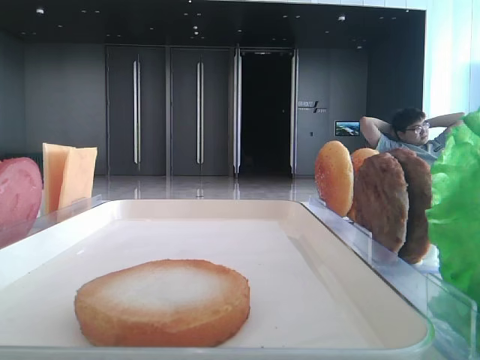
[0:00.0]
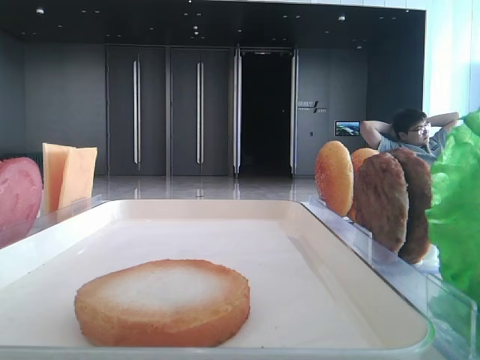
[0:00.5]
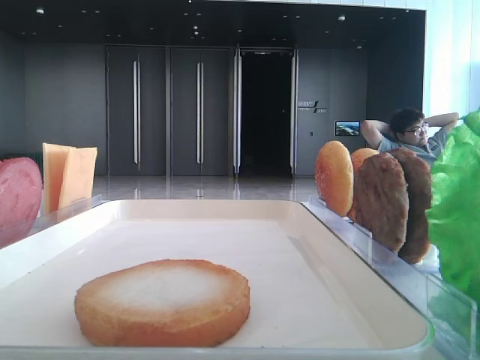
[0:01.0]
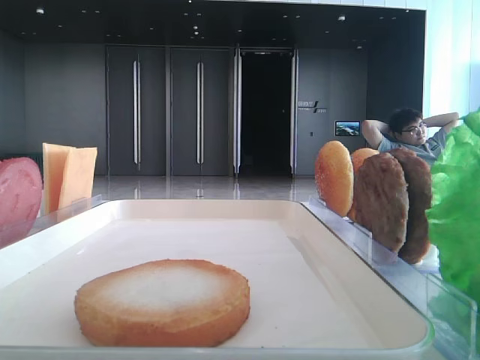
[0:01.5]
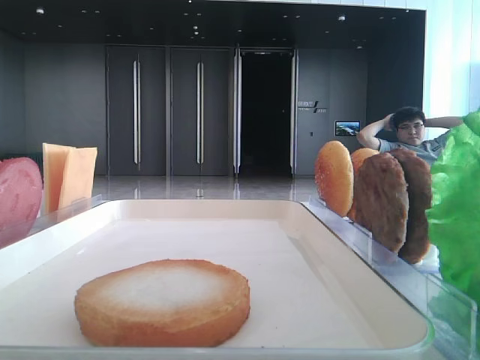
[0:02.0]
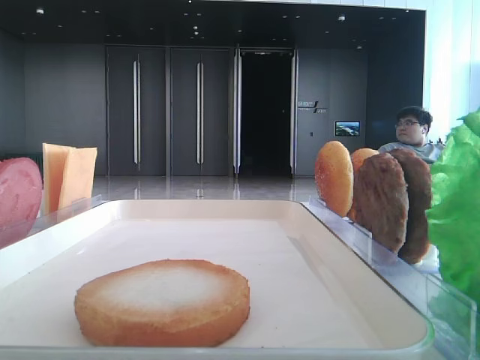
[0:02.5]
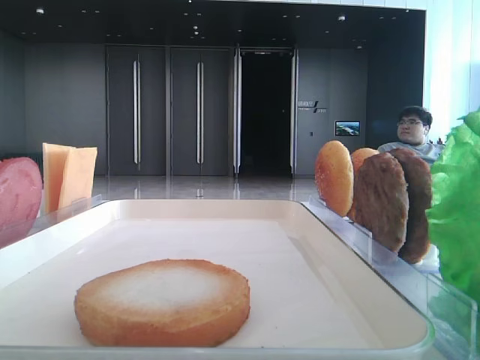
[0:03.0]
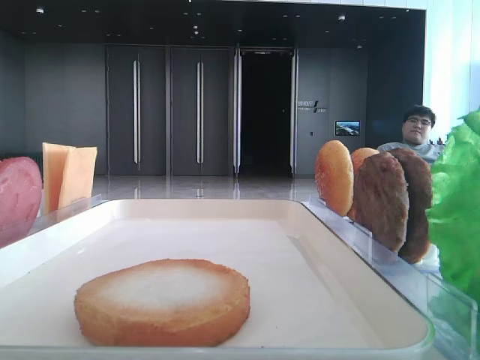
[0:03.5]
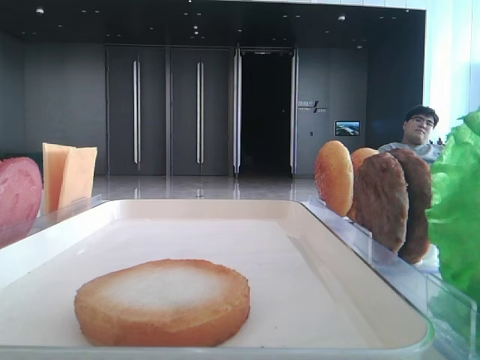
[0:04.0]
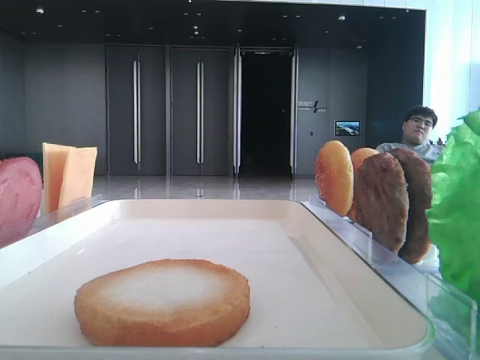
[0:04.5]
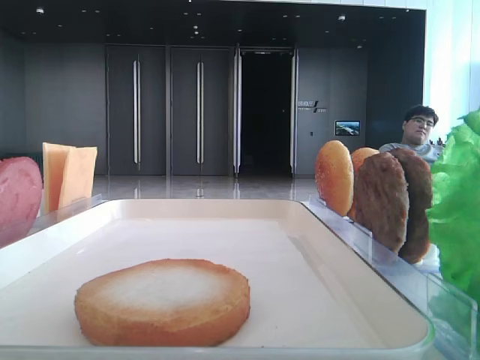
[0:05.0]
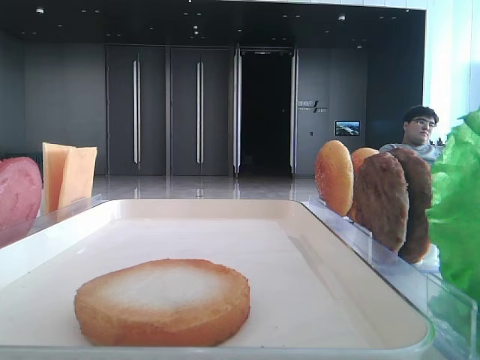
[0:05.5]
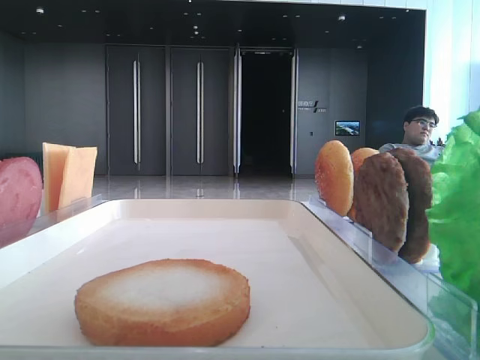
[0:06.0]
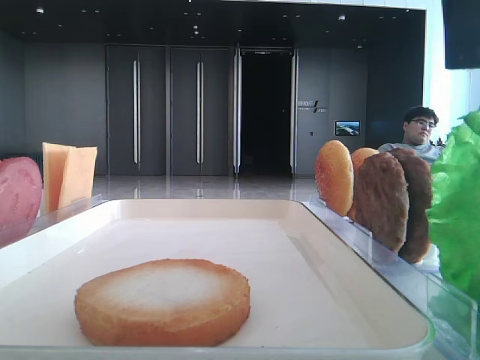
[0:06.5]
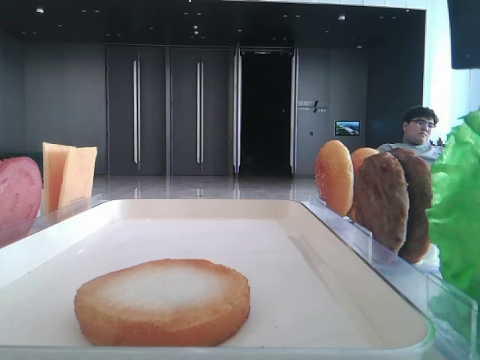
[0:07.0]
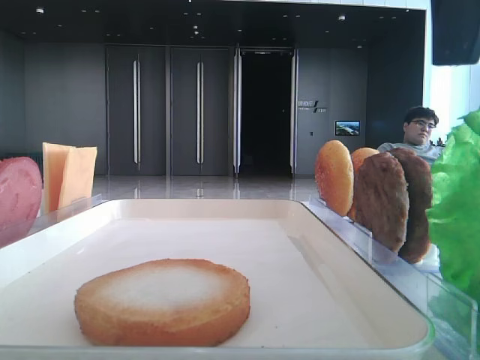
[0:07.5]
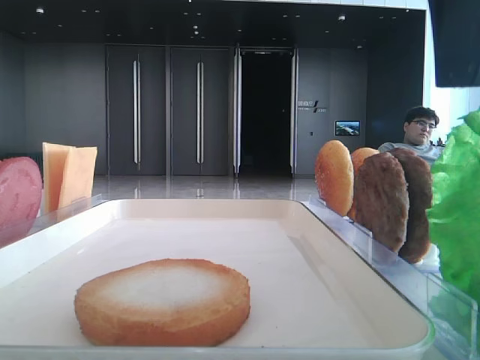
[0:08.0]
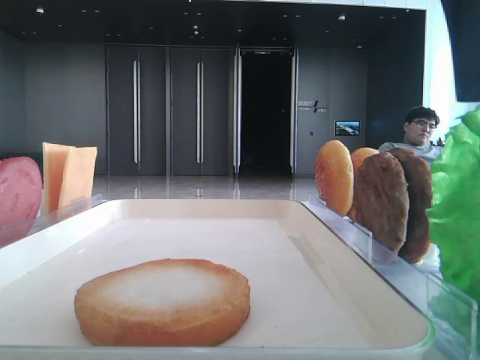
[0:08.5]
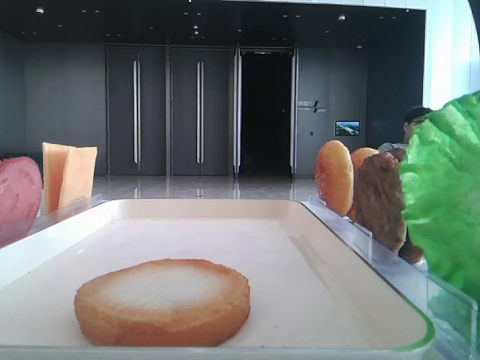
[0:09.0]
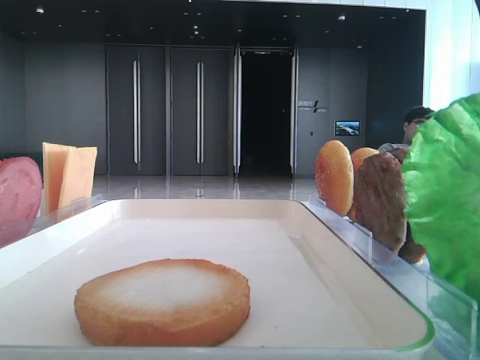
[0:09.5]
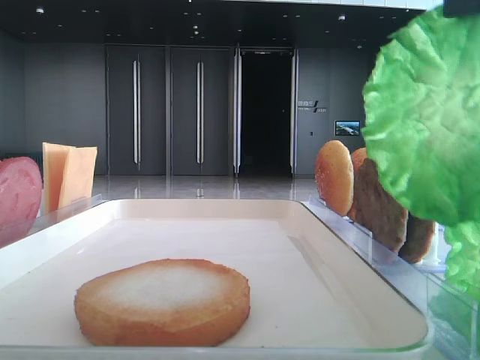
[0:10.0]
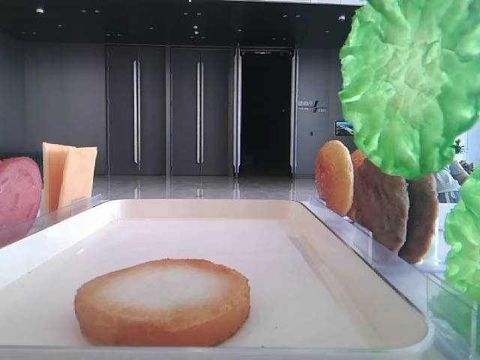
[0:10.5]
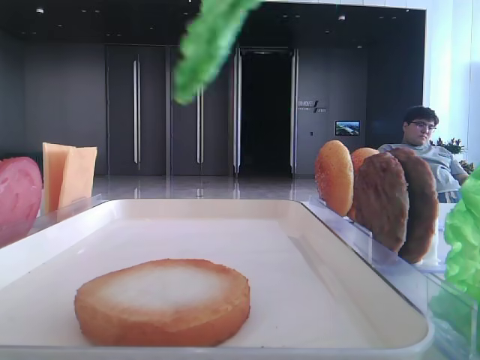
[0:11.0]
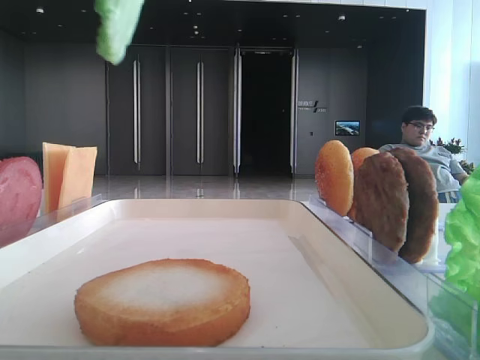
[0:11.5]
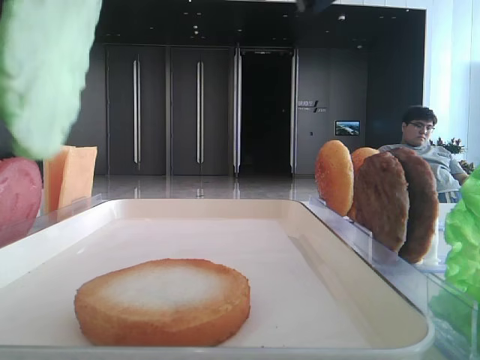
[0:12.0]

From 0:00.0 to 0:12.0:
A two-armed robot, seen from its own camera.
Step, from 0:00.0 to 0:11.0: Grab the lettuce leaf with the right hand.
From 0:02.0 to 0:04.0: The right gripper shifts roughly 15 cm forward and upward.
From 0:06.0 to 0:08.0: The grippers make only small movements.
From 0:08.0 to 0:10.0: The right gripper closes up.
From 0:10.0 to 0:12.0: The right gripper shifts some 10 cm to the left.

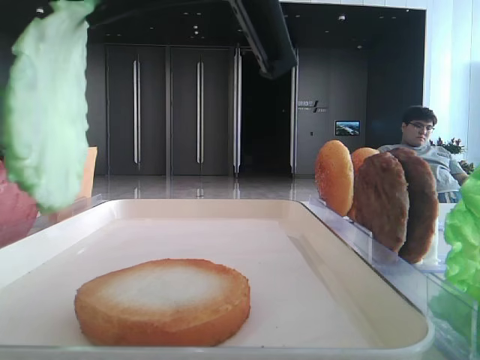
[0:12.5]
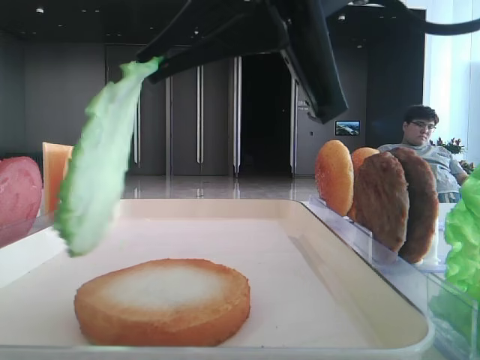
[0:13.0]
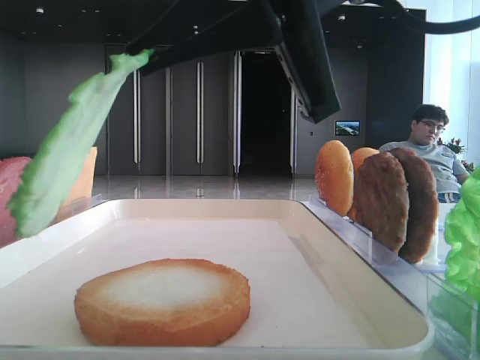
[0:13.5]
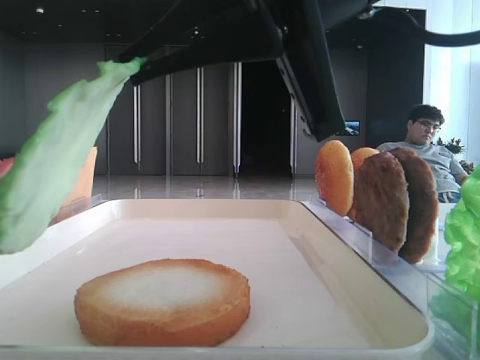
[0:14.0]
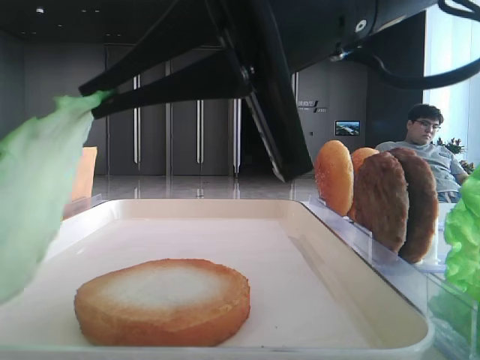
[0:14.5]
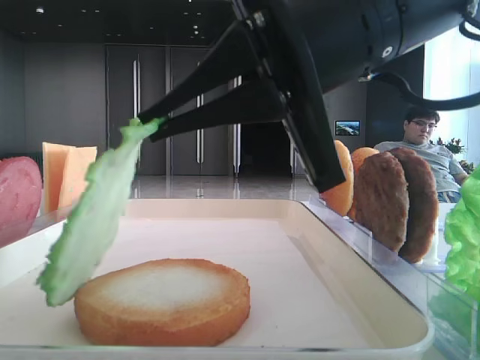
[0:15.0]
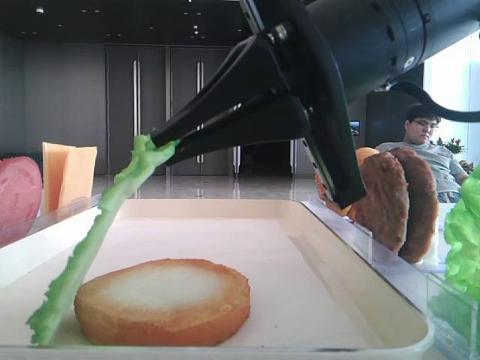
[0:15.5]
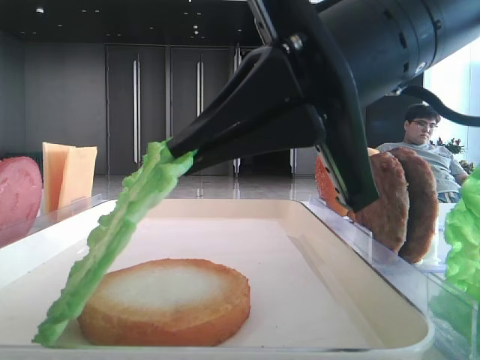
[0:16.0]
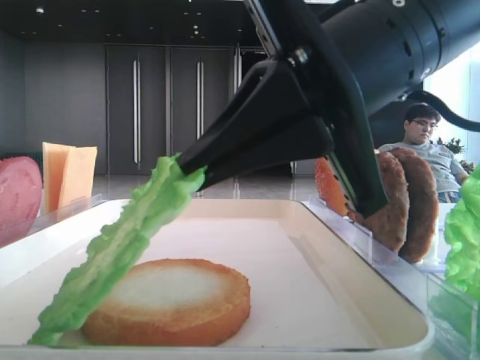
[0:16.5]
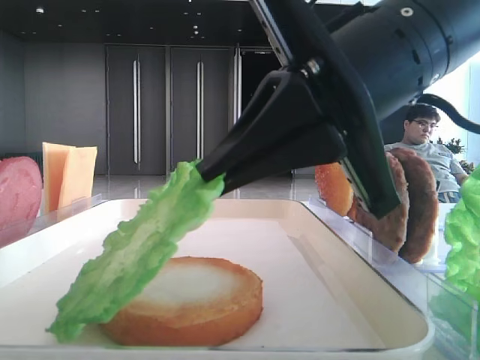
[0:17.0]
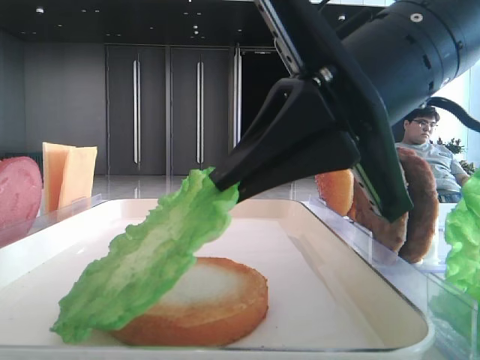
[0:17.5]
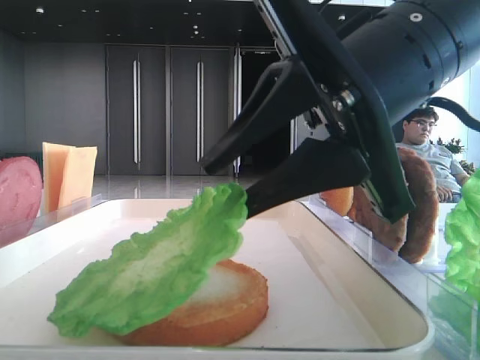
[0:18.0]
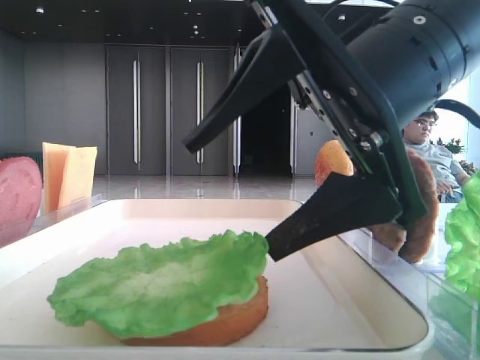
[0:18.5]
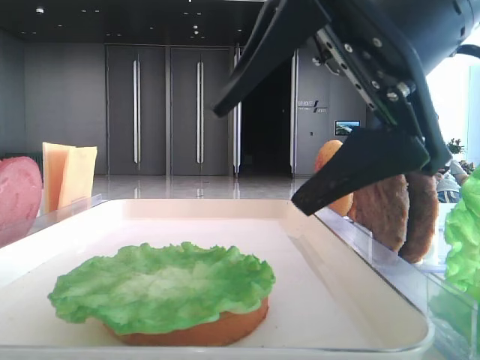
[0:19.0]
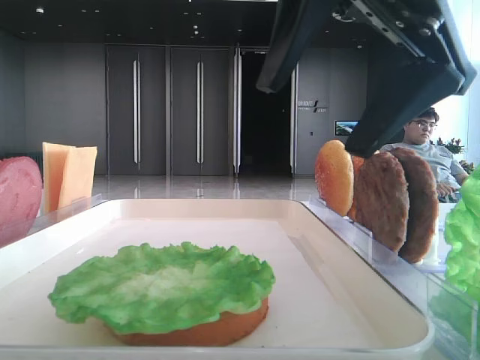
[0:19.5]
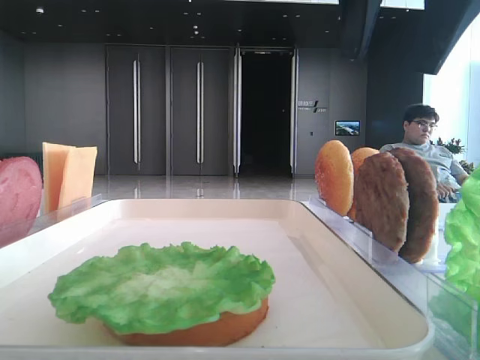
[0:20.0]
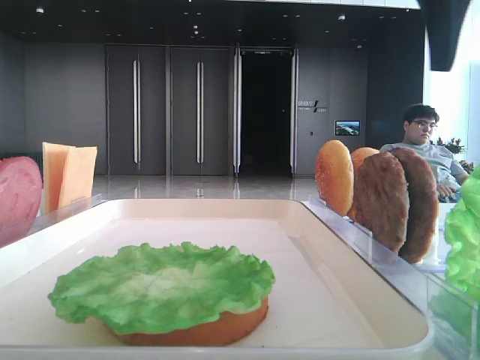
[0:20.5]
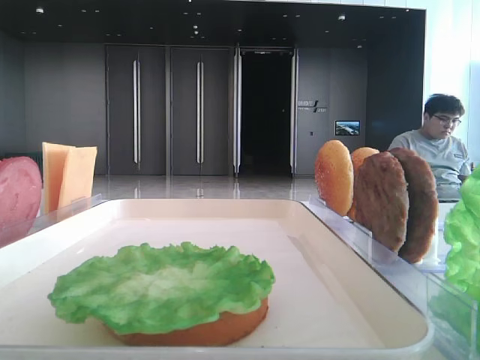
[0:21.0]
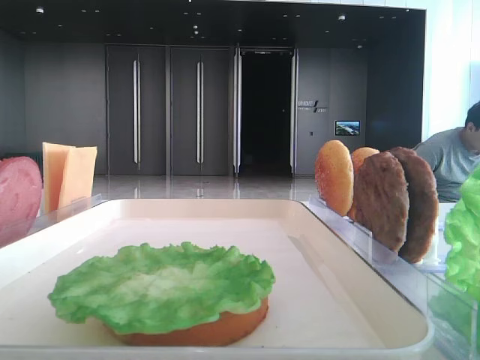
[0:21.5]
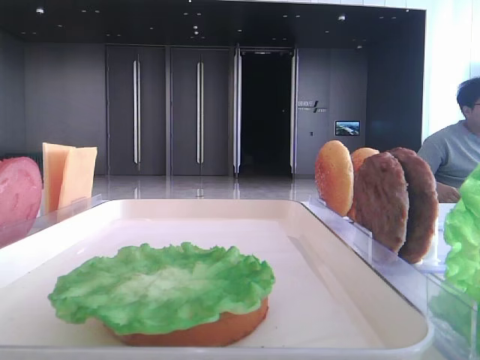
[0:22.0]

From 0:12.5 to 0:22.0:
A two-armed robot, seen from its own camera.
Step, from 0:12.5 to 0:19.0: Place the lettuce leaf on the bottom bread with the right hand.
From 0:12.5 to 0:14.5: The right gripper is displaced downward by roughly 5 cm.
From 0:16.5 to 0:18.0: The right gripper opens.
From 0:18.0 to 0:20.0: The right gripper shifts about 15 cm upward, and opens up.
From 0:20.0 to 0:22.0: The right gripper moves to the right, upward and backward, some 25 cm.

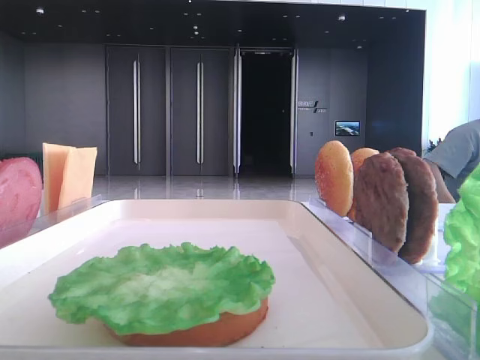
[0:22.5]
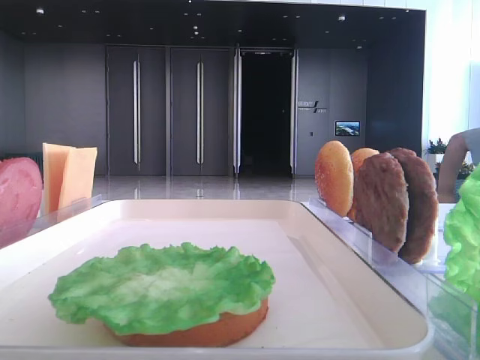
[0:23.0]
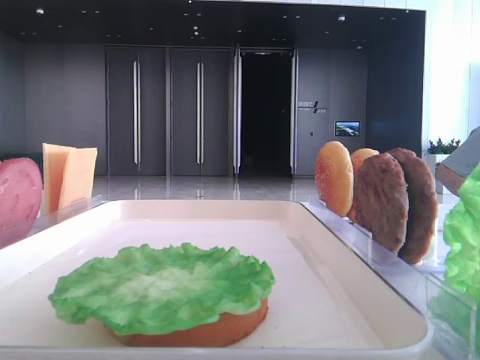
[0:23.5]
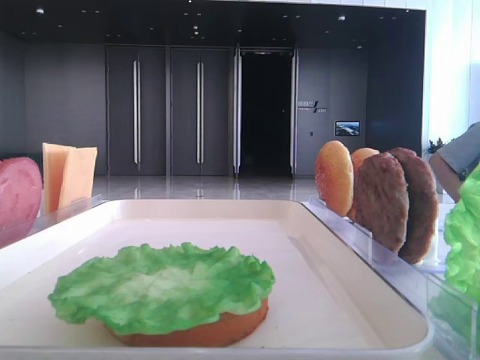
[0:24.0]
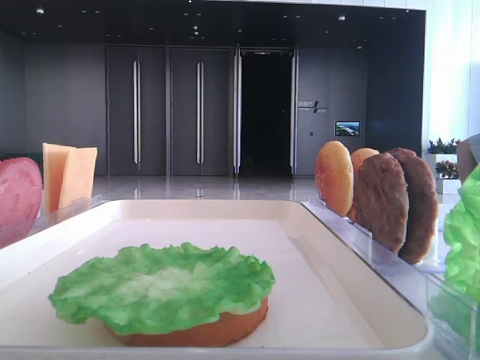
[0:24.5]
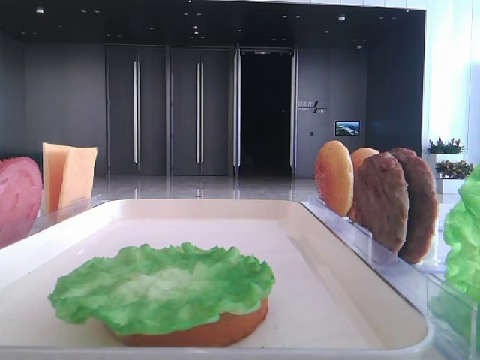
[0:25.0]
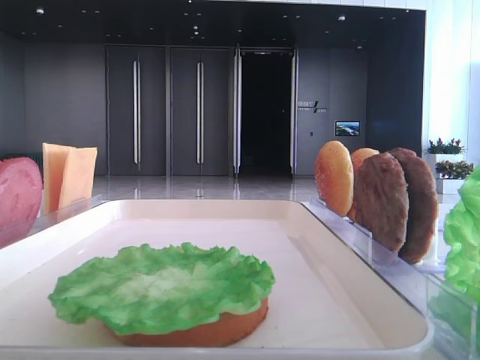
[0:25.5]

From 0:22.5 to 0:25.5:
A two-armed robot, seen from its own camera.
From 0:22.5 to 0:24.0: The right gripper is displaced downward and backward by roughly 15 cm.
From 0:24.0 to 0:25.5: The grippers make only small movements.

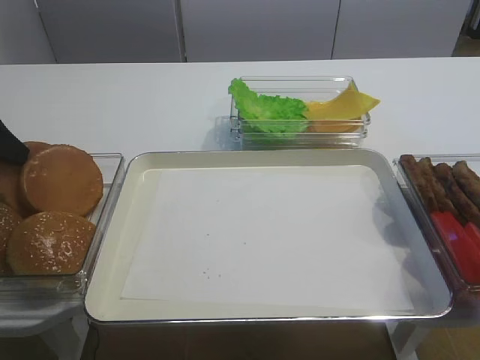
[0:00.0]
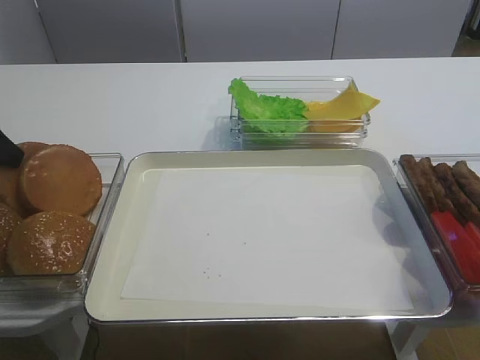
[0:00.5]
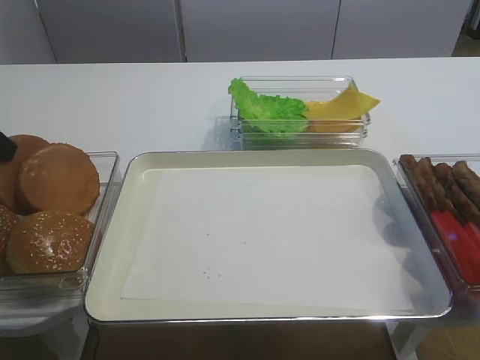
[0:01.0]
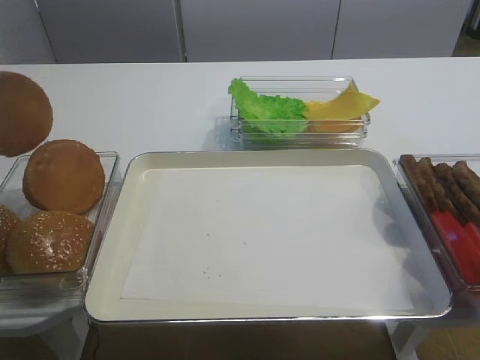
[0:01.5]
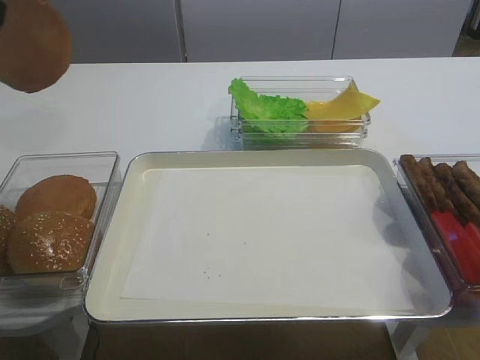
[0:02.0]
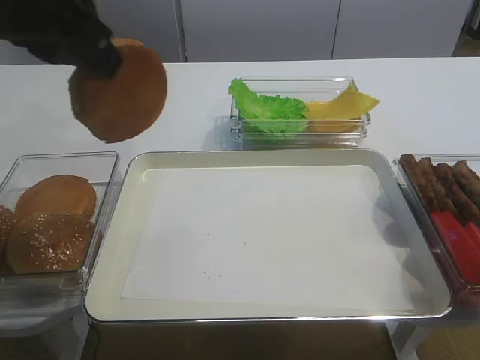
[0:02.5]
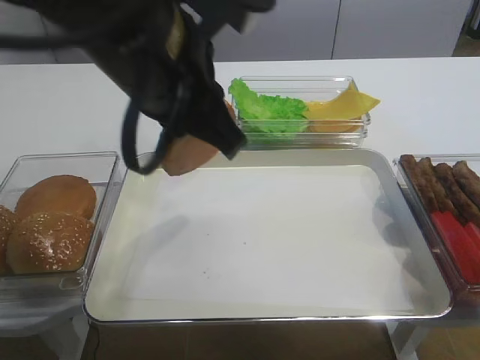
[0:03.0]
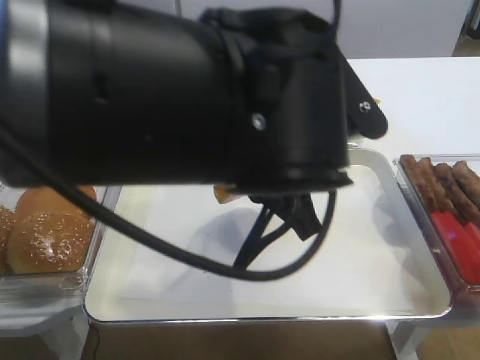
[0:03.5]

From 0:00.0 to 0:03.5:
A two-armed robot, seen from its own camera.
From 0:00.0 to 0:02.0: The left gripper goes roughly 15 cm upward, and closes up.
From 0:02.0 to 0:03.5: The left gripper moves to the right, approximately 30 cm.
